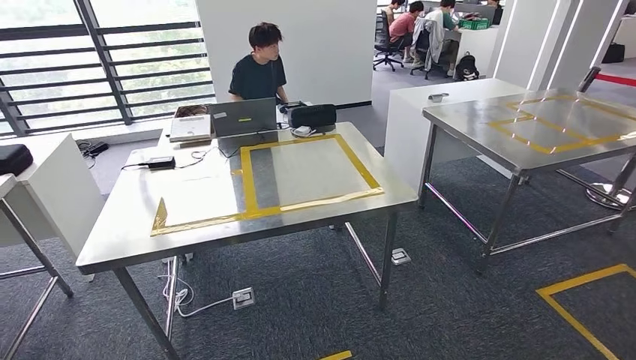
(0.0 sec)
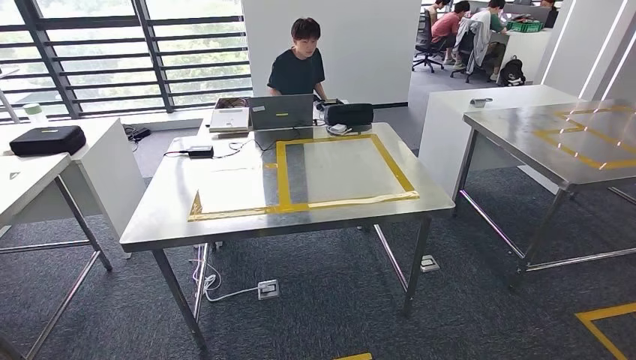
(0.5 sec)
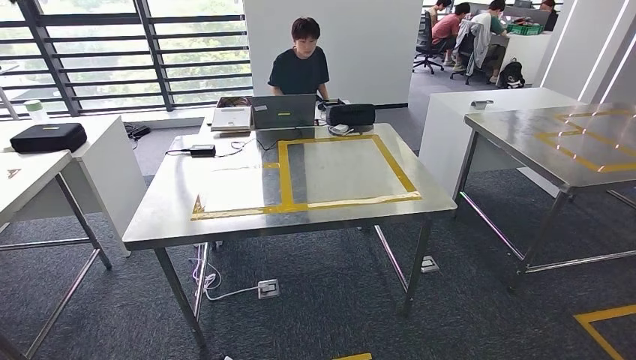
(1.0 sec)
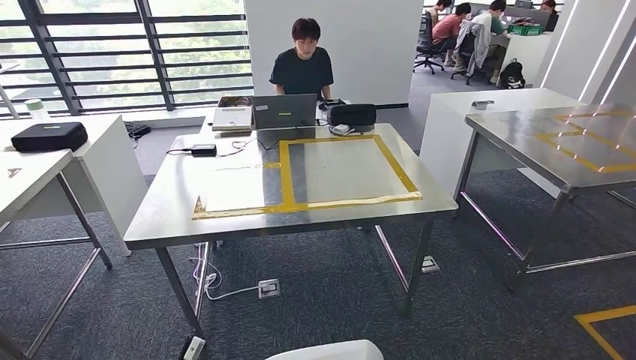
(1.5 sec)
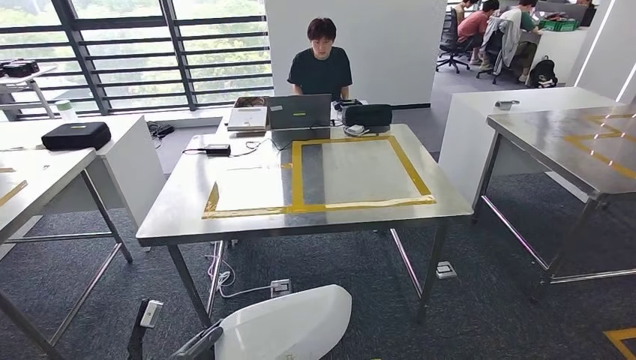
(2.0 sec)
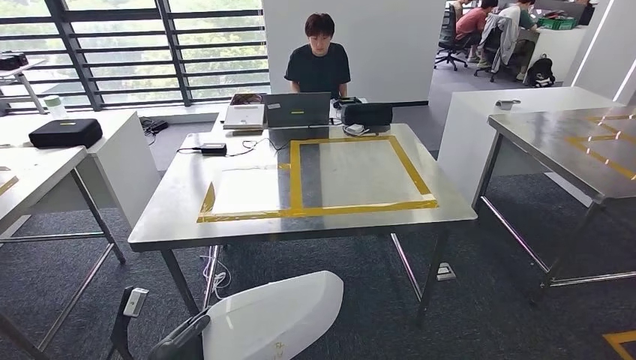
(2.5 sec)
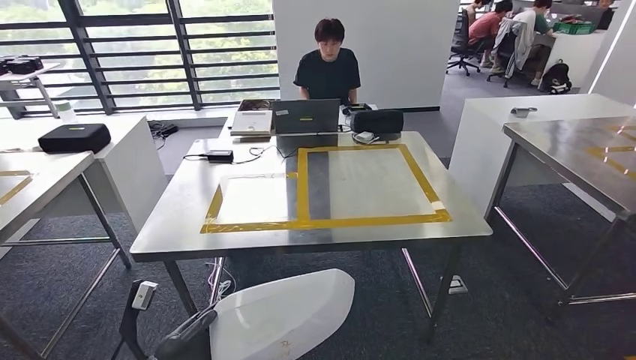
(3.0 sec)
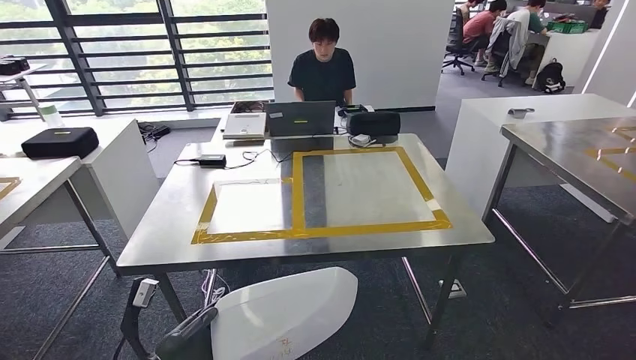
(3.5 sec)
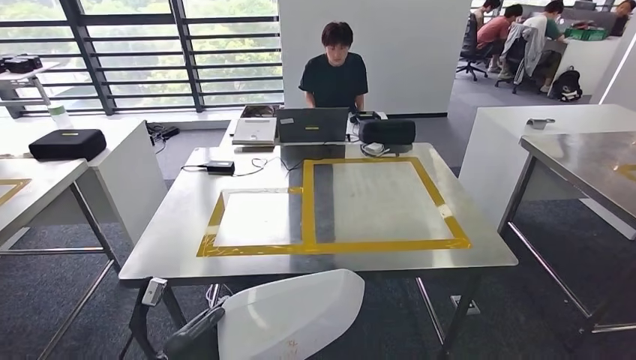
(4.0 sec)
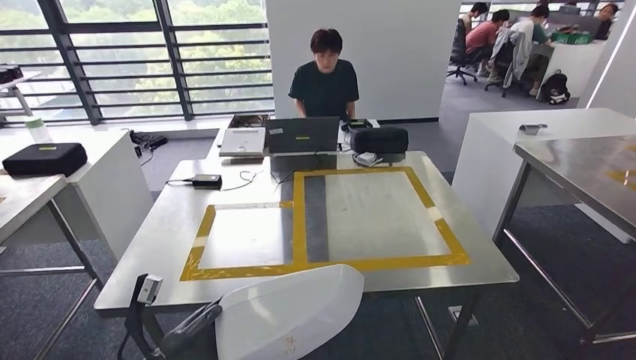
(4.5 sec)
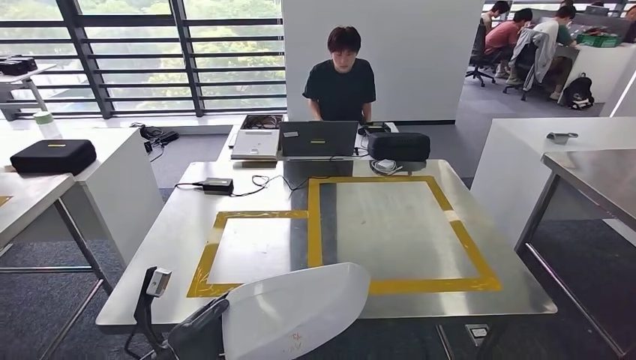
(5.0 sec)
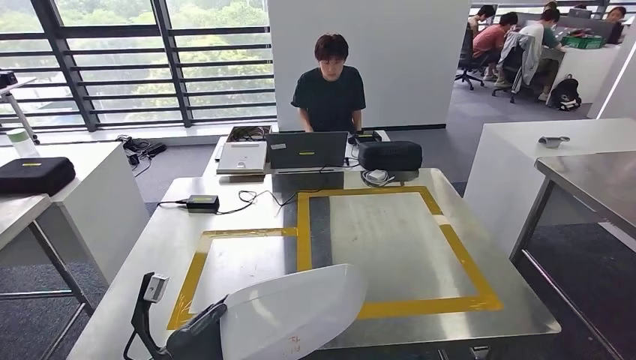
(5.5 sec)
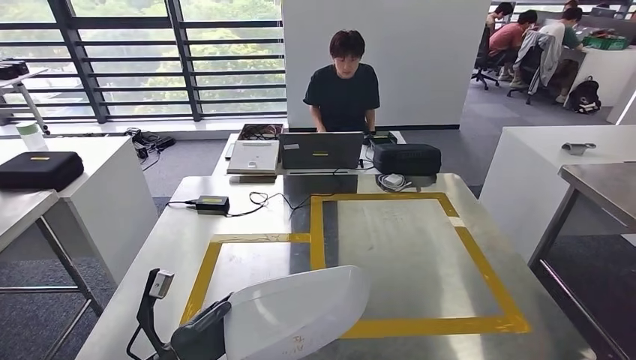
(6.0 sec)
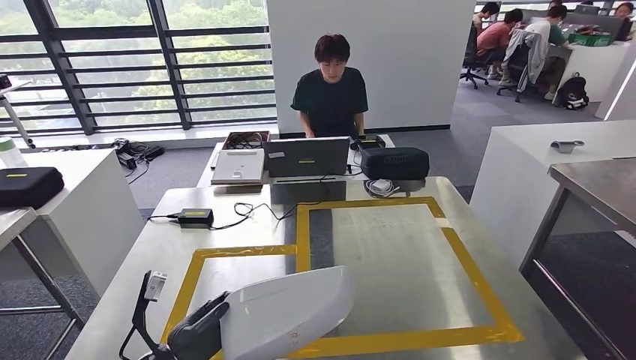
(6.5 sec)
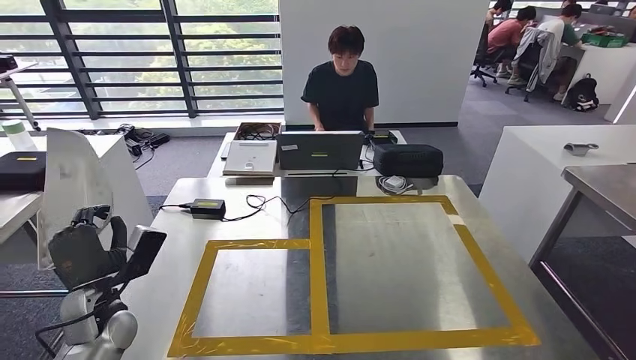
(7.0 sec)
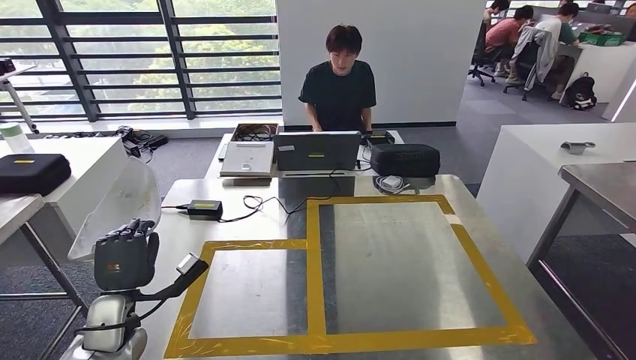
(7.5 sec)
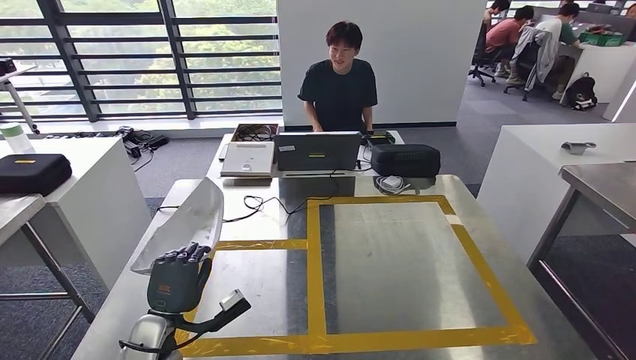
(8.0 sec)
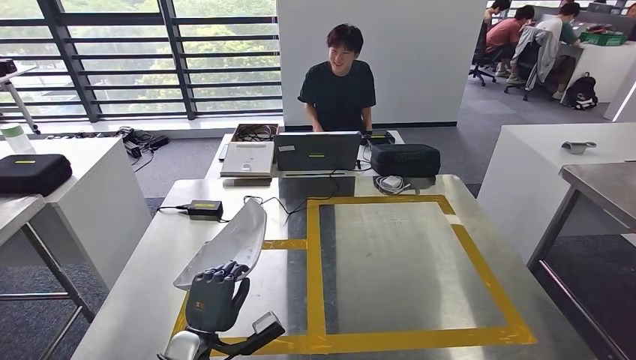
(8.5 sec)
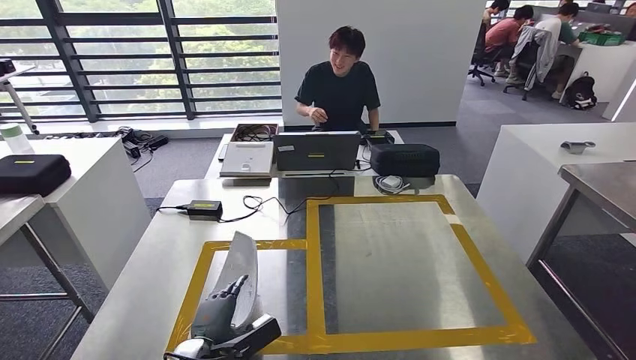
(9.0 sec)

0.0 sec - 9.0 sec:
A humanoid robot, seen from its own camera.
Step, 0.0 sec - 8.5 sec: Insert the small parts into the corresponding holes on the workbench.

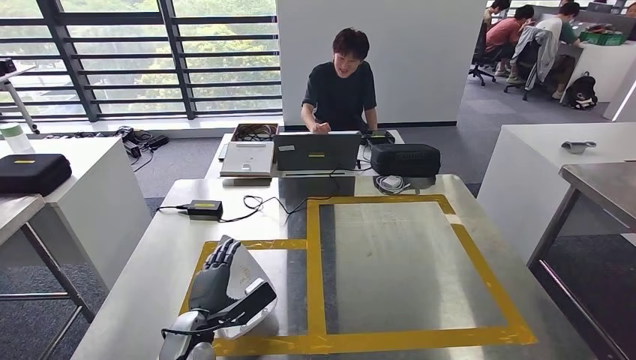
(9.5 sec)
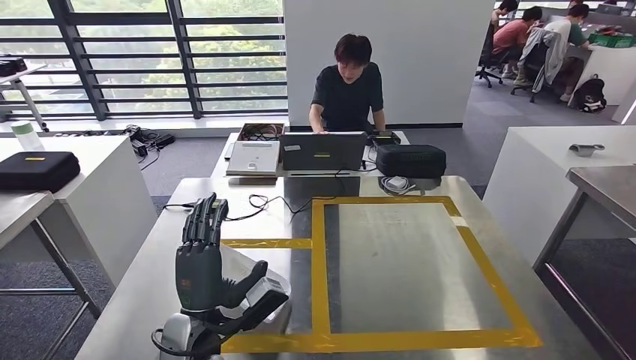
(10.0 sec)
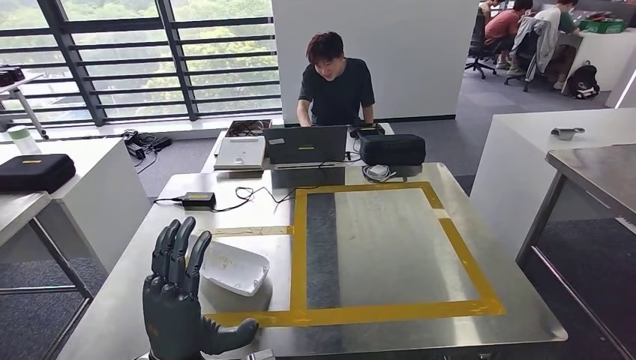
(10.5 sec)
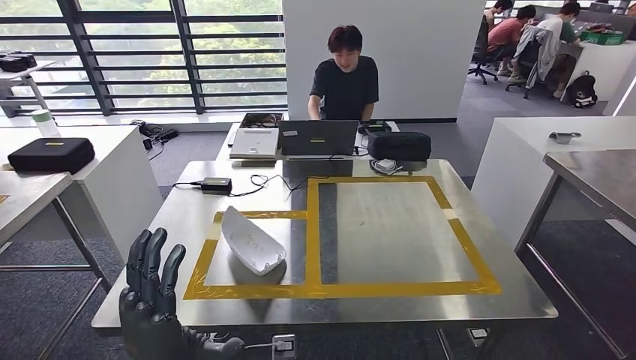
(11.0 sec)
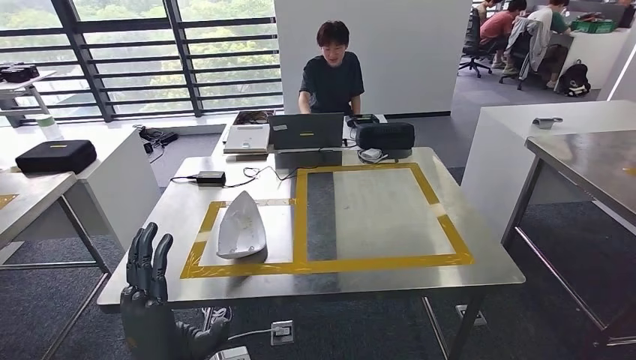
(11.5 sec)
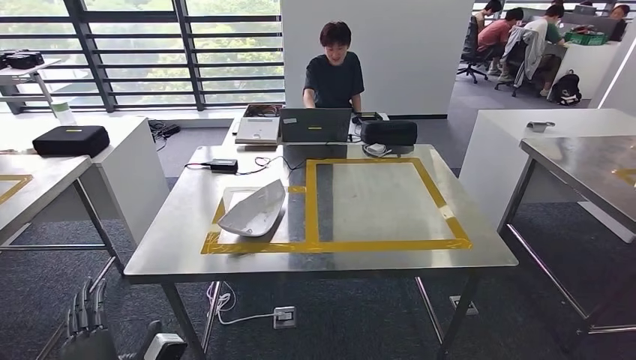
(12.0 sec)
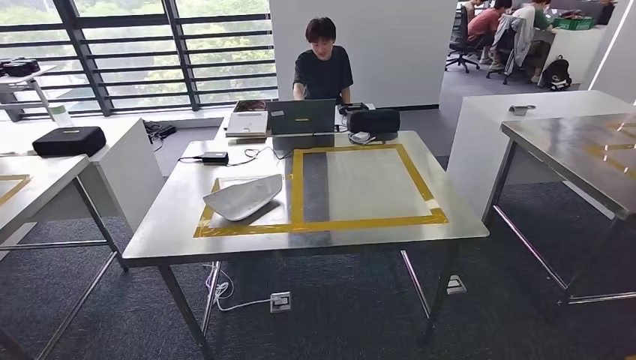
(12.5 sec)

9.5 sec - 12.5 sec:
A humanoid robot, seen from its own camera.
Step, 9.5 sec - 12.0 sec: Move to the initial position of the workbench.

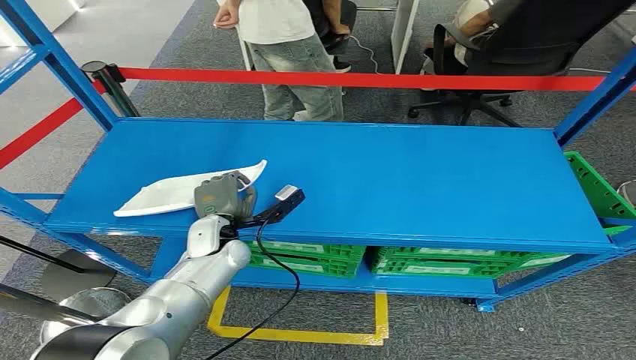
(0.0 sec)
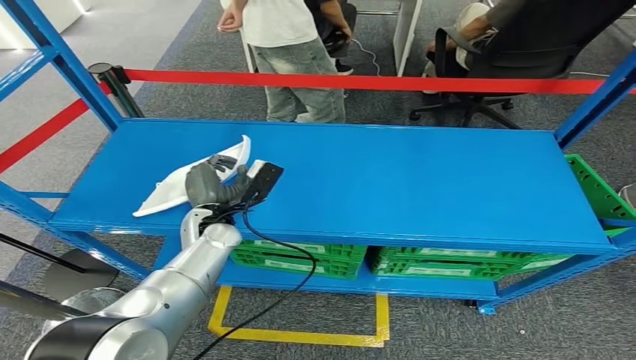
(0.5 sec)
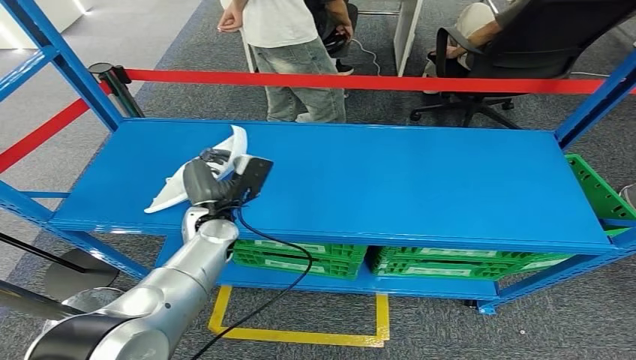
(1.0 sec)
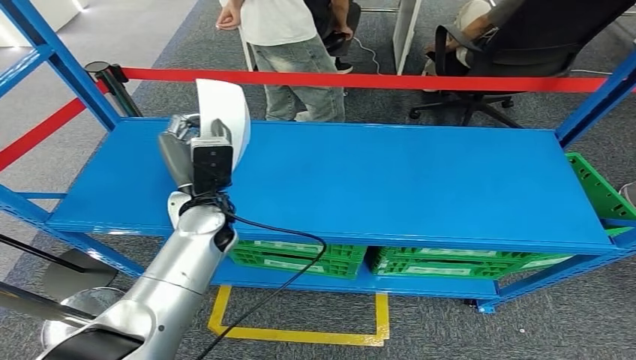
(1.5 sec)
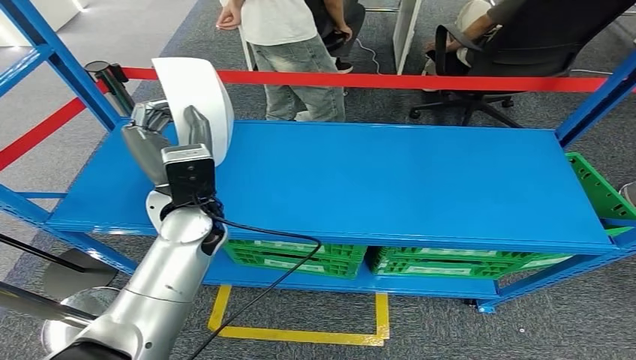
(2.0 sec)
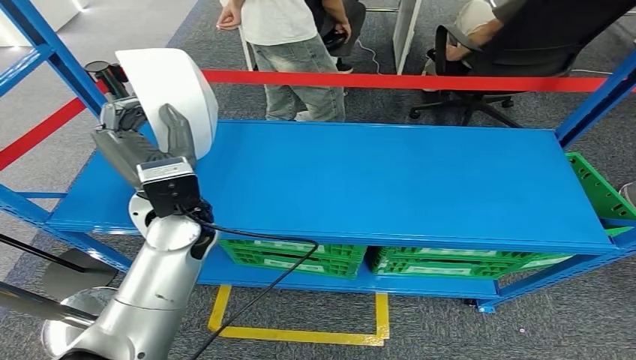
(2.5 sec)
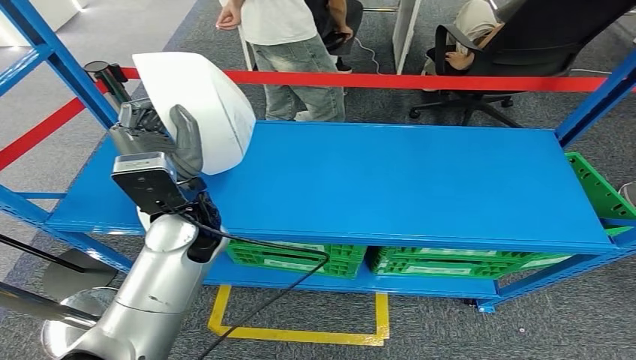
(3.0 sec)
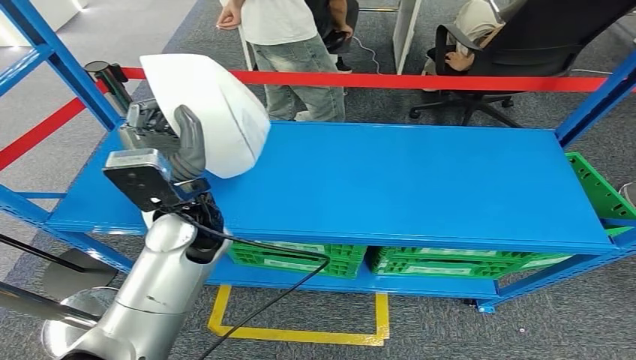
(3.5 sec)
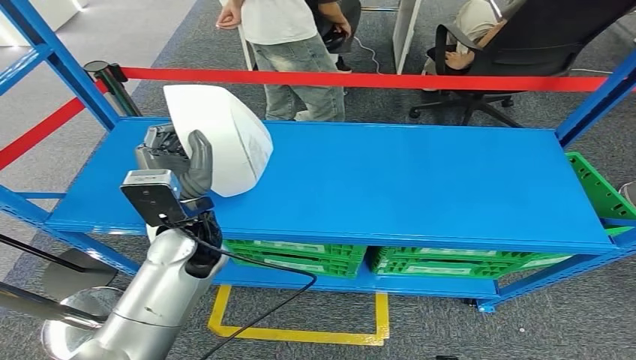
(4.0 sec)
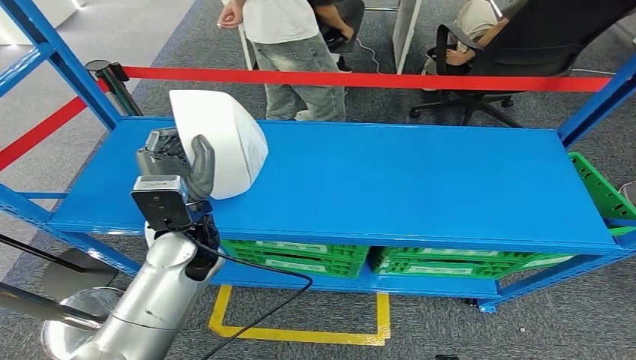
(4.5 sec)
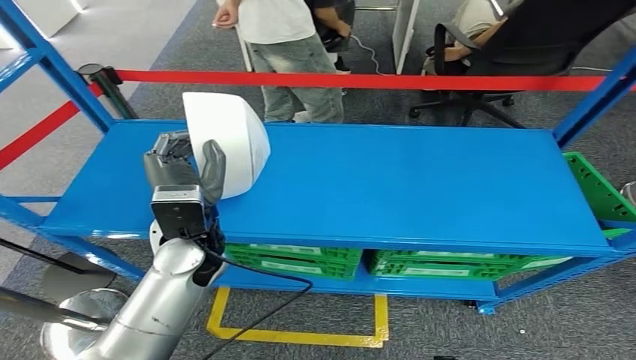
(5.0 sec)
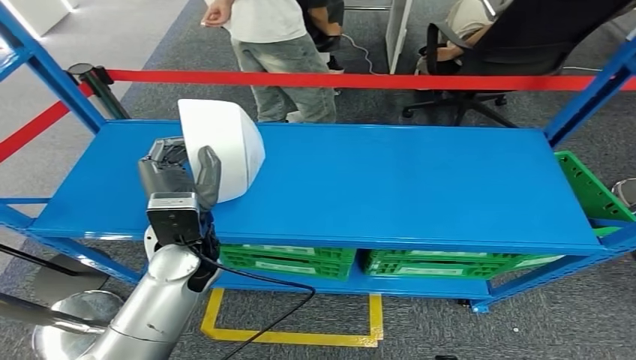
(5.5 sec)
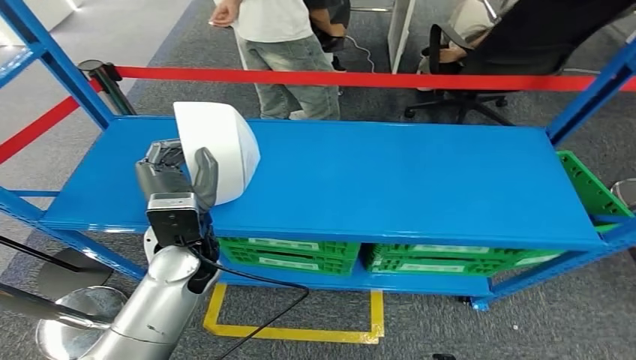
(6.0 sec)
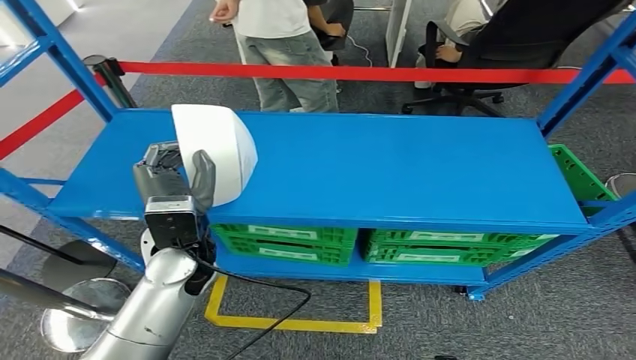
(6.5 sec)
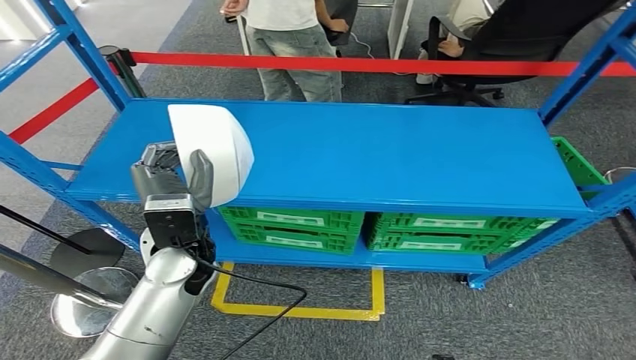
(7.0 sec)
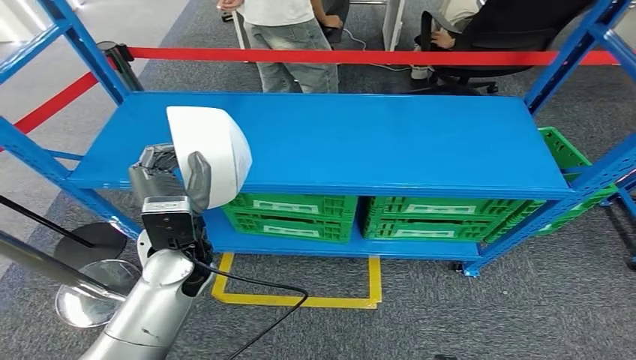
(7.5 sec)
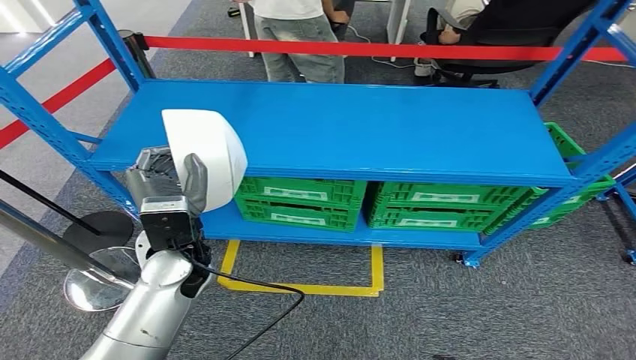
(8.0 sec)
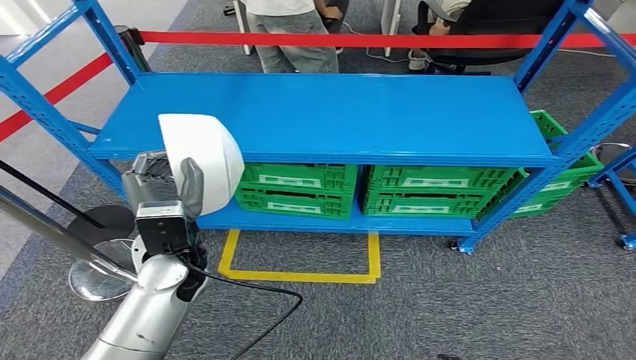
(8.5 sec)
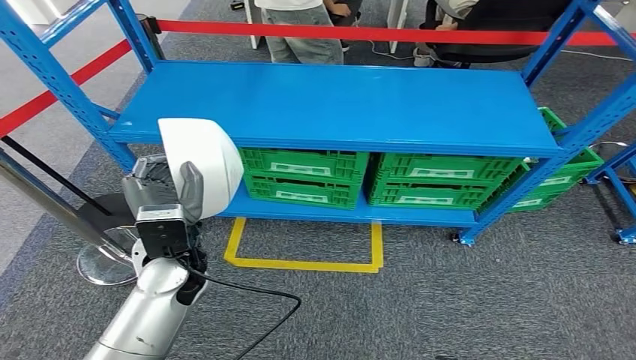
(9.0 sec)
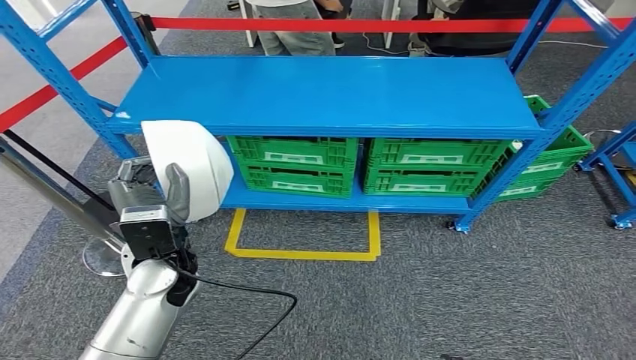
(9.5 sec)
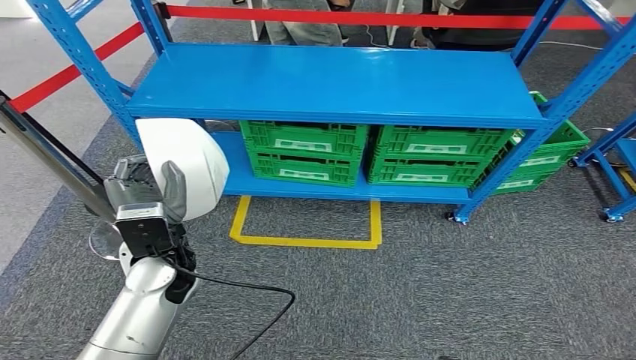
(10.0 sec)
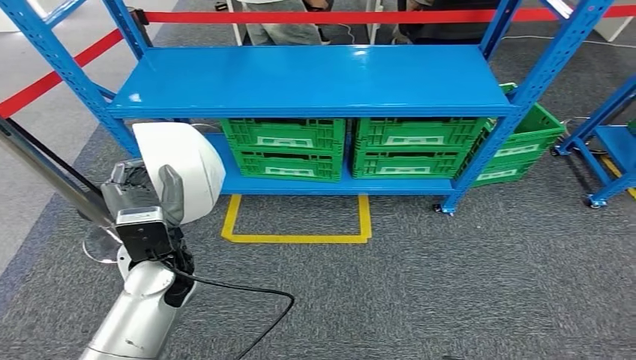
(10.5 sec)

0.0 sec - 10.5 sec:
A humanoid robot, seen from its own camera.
Step, 0.0 sec - 5.0 sec: Take small components from the rack.
